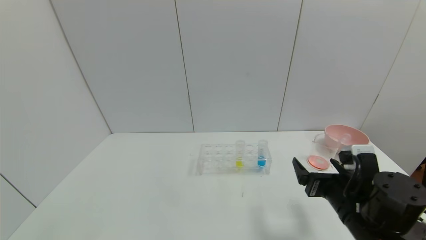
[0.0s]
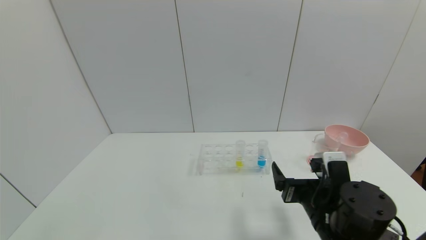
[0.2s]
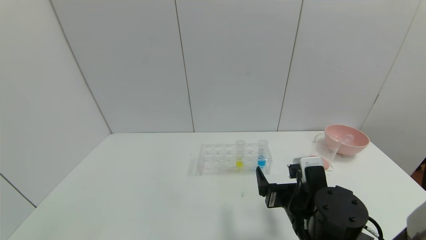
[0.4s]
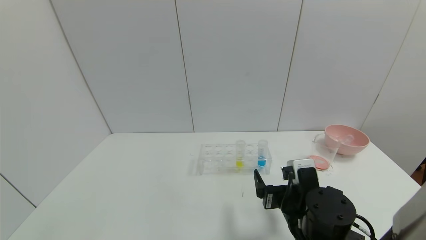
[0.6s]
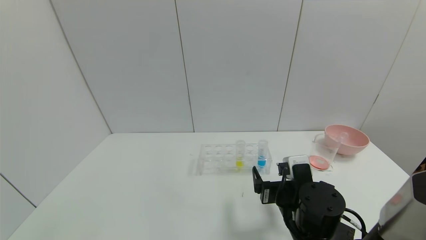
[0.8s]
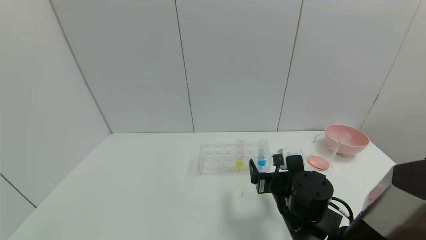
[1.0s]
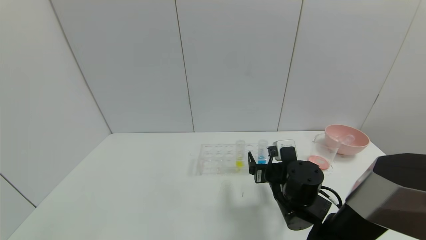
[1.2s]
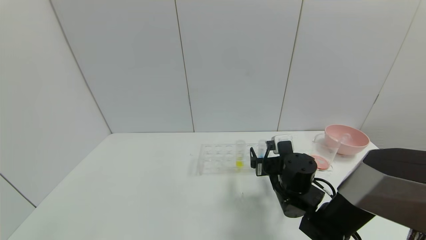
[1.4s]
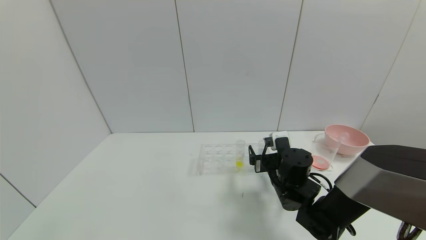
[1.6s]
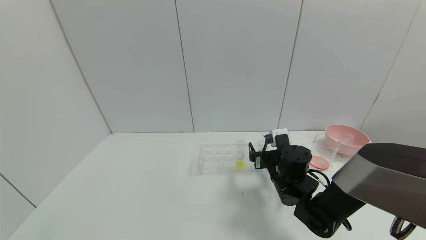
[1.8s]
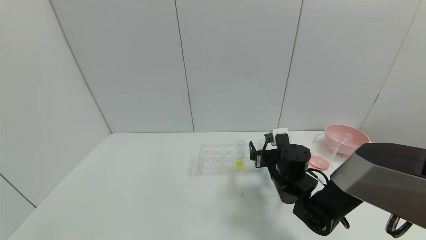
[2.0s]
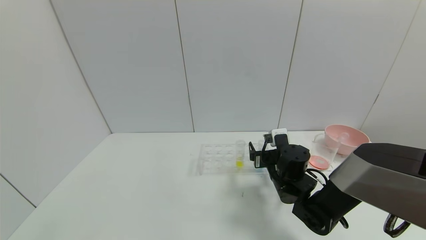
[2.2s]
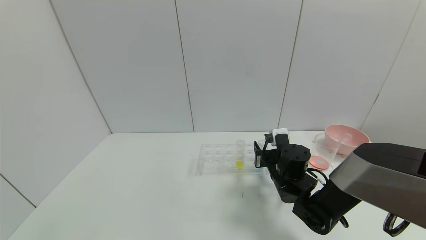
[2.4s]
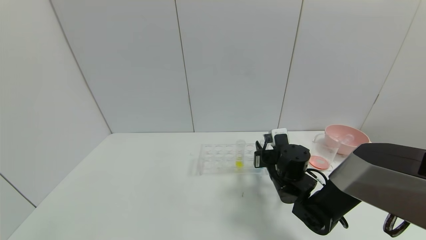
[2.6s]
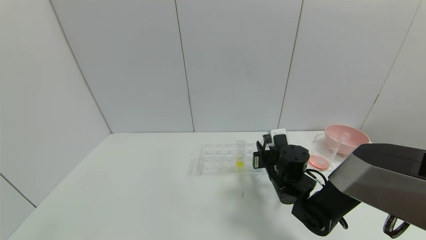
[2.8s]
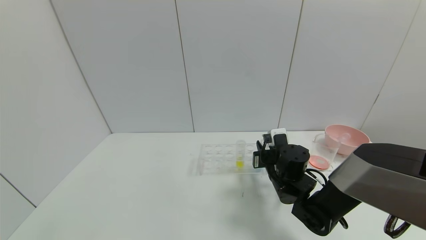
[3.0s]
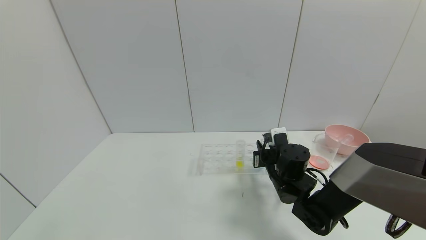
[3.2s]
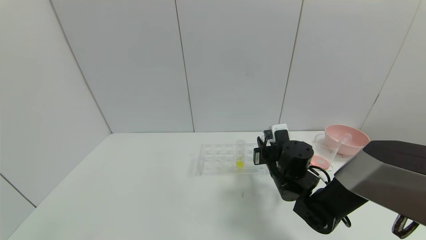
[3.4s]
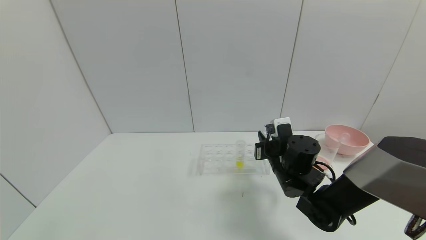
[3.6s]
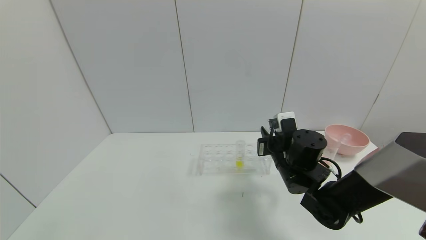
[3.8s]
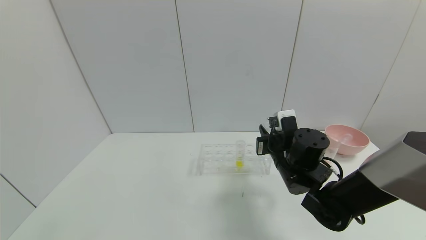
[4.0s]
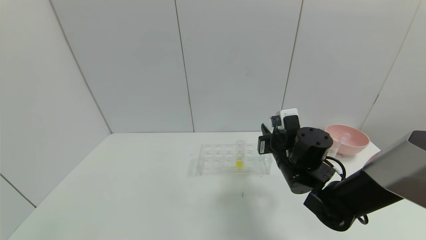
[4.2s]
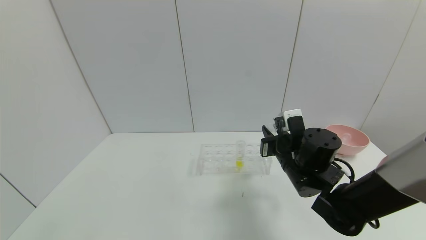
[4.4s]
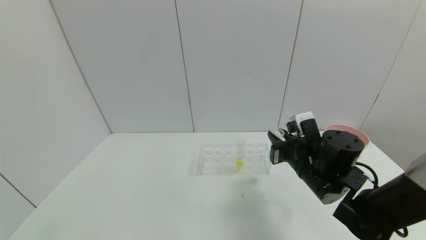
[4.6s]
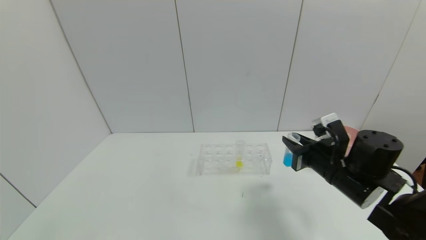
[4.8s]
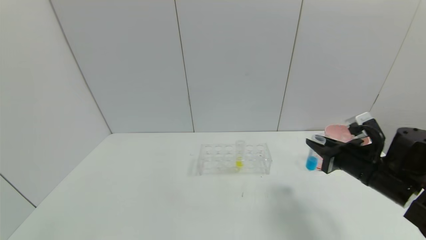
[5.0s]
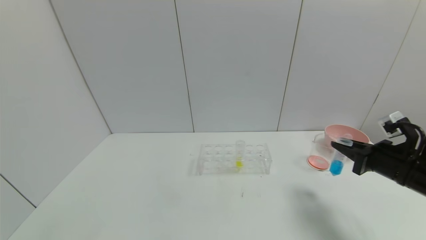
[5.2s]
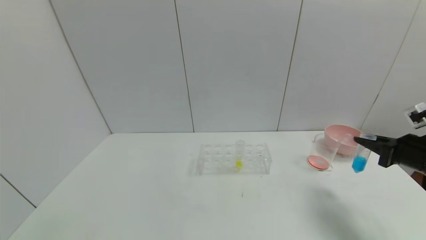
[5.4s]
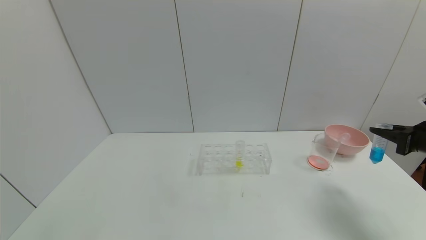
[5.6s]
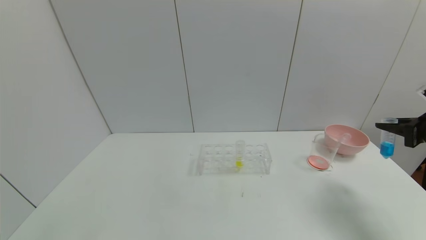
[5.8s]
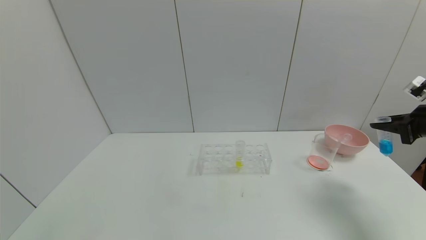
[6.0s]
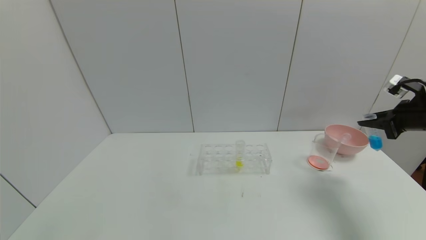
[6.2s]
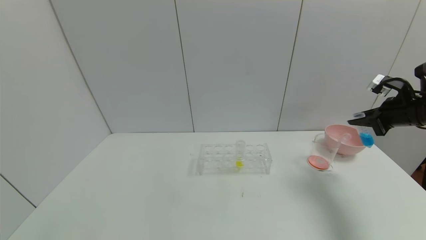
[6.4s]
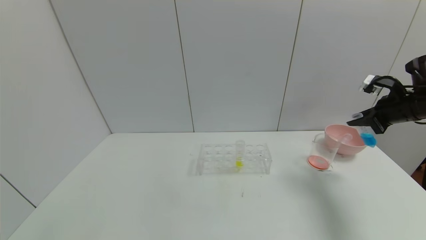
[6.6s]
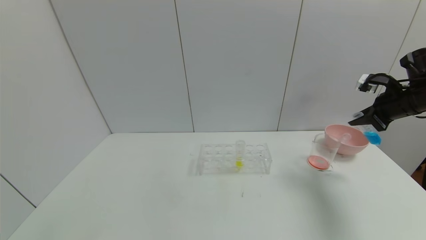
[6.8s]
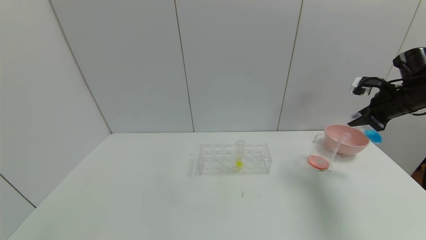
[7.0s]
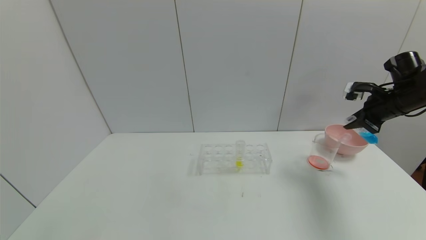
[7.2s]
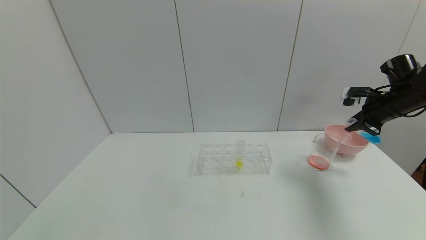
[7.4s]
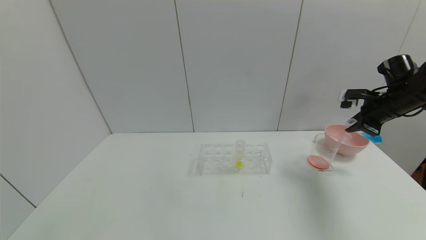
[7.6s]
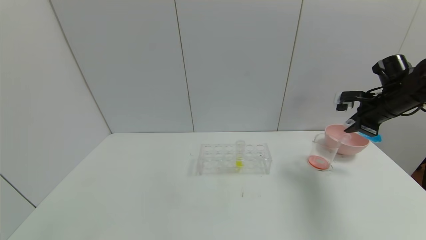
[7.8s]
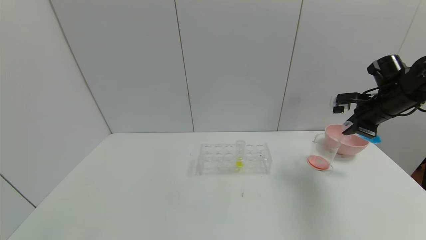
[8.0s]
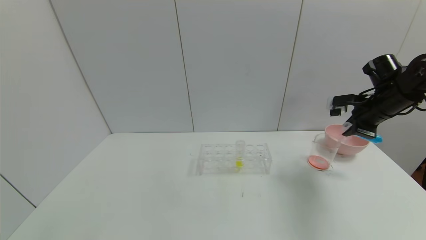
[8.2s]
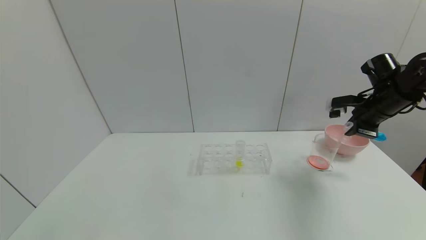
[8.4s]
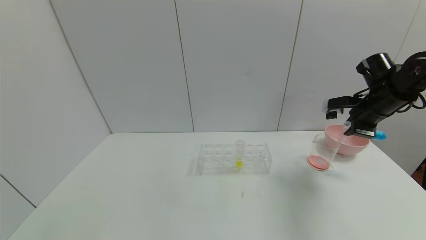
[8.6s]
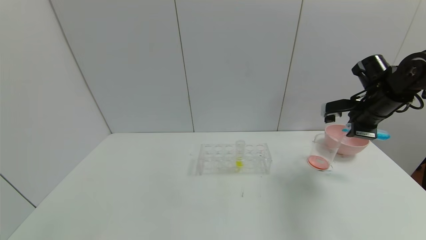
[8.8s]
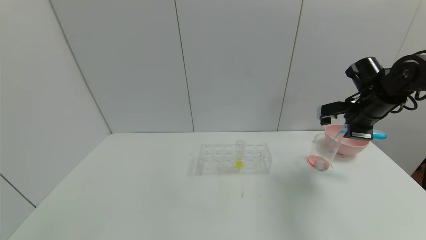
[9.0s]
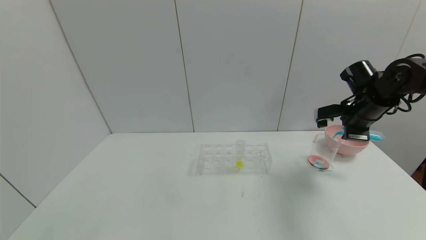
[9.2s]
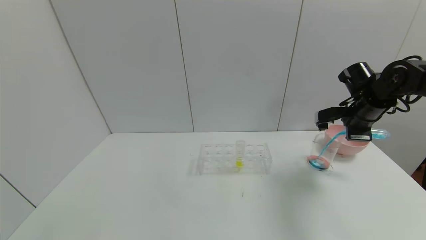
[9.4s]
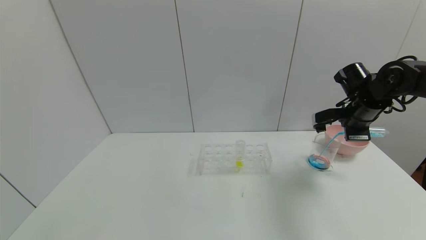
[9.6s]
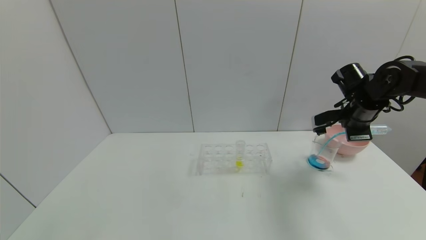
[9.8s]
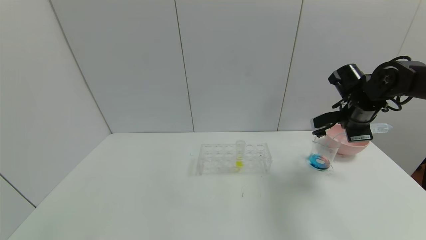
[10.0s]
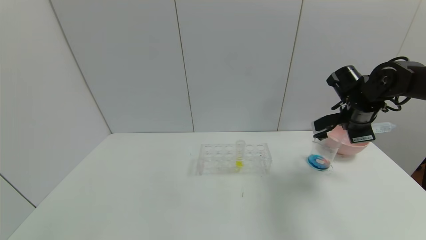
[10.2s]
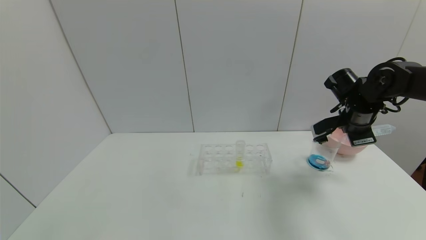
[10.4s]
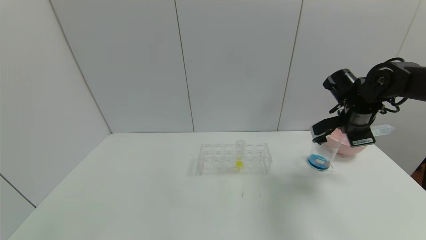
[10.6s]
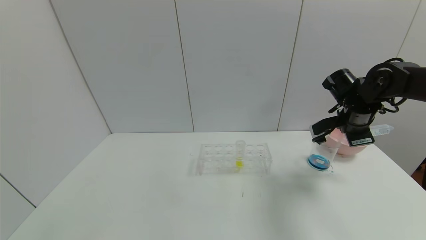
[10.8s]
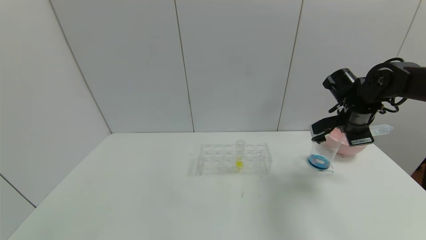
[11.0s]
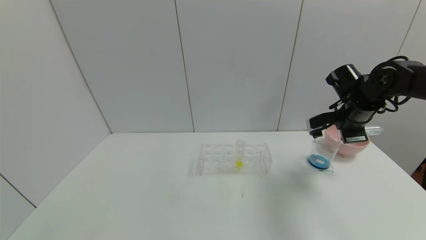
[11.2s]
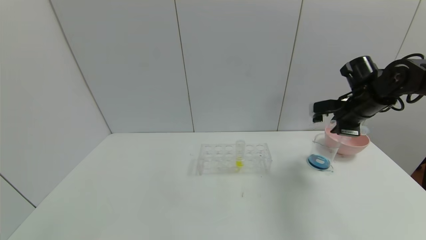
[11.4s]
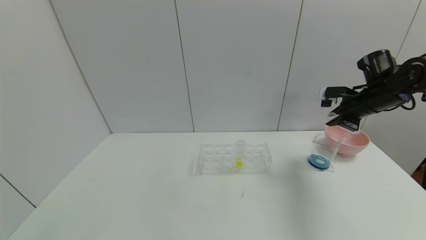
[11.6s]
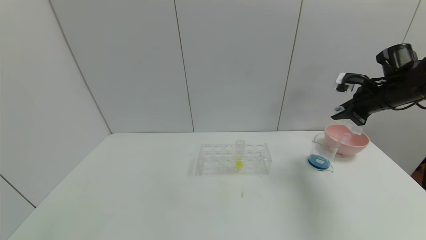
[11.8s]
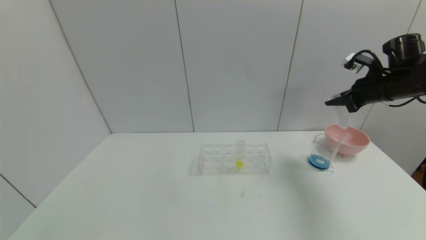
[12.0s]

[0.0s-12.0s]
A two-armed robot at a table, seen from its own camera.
Task of the whole recording: pick up the test tube with red pigment and the test tube with blue pigment by grippers and pour them into the container.
Step, 0.0s to 6.2s: Pick up the test tube containing the blue reagent with right gripper.
0.0s to 1.6s: The right gripper goes some 15 cm forward and to the left.
1.6s to 3.0s: The right gripper closes its fingers.
3.0s to 4.4s: The right gripper moves upward, about 5 cm.
4.4s to 6.0s: The right gripper travels to the right by approximately 30 cm.
6.0s to 7.6s: The right gripper heads forward and to the left, covering roughly 10 cm.
7.6s to 9.0s: The right gripper travels to the left by roughly 5 cm.
10.4s to 12.0s: The right gripper travels to the right and upward by approximately 10 cm.

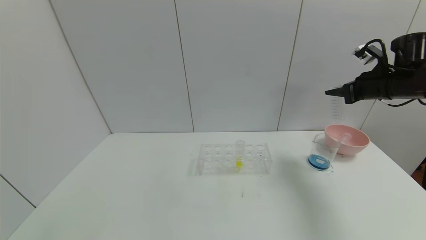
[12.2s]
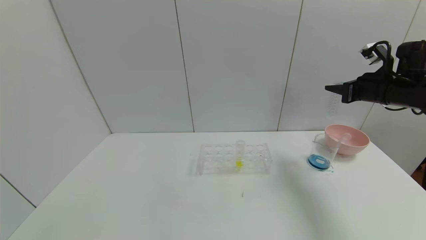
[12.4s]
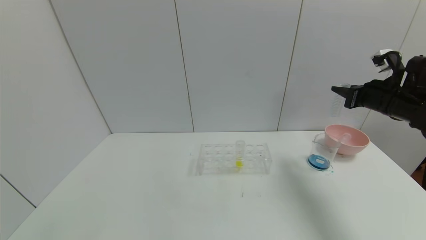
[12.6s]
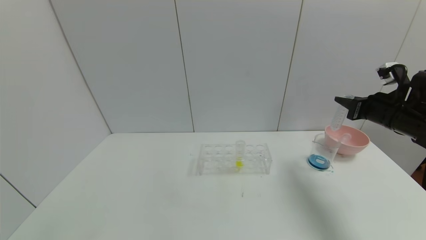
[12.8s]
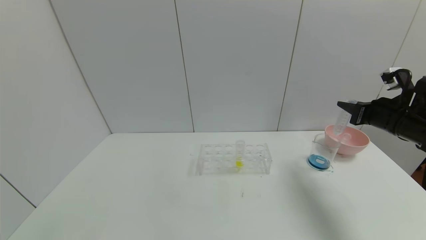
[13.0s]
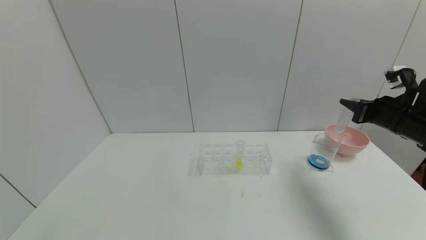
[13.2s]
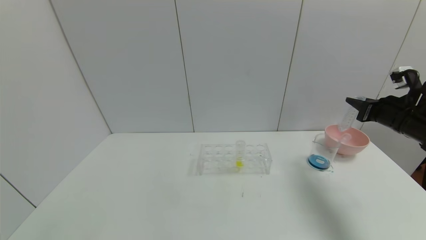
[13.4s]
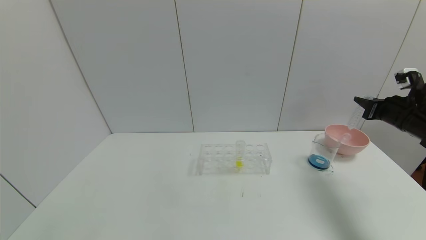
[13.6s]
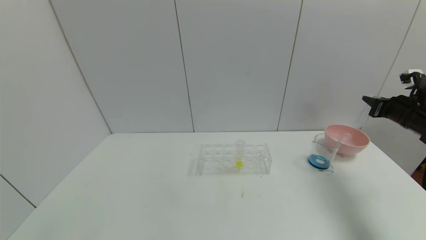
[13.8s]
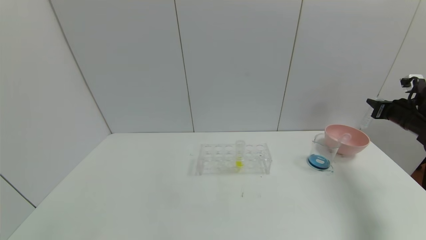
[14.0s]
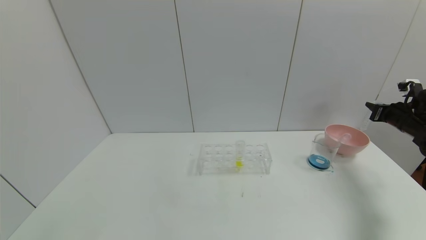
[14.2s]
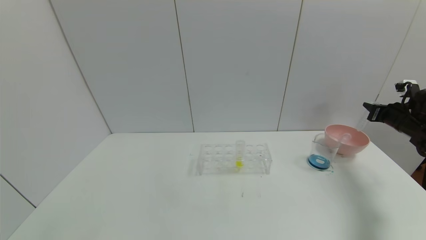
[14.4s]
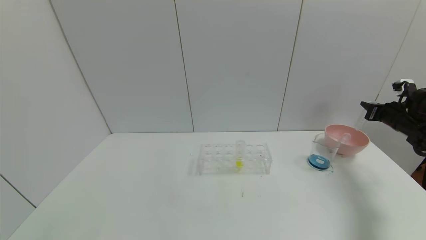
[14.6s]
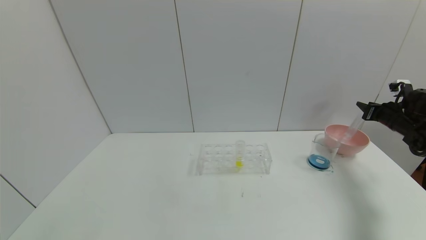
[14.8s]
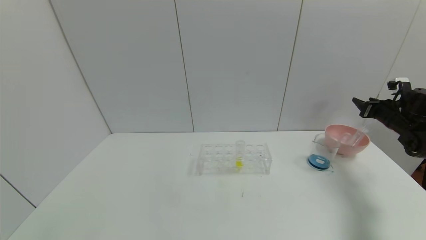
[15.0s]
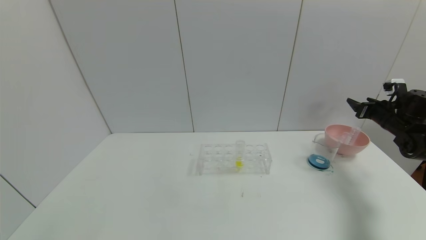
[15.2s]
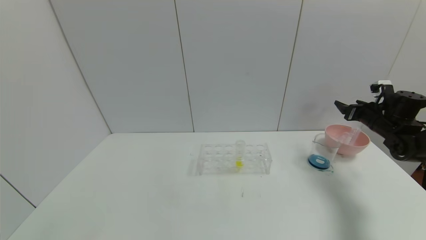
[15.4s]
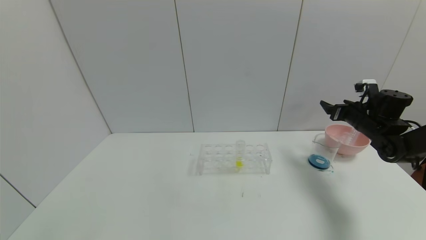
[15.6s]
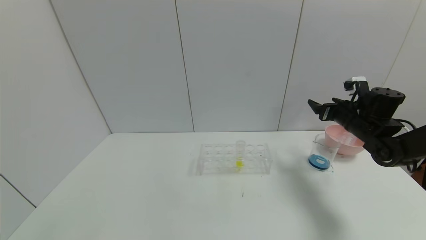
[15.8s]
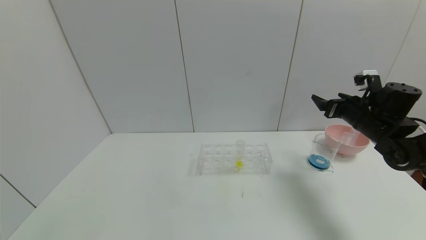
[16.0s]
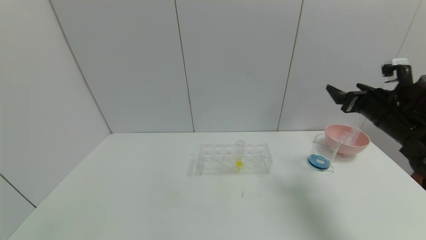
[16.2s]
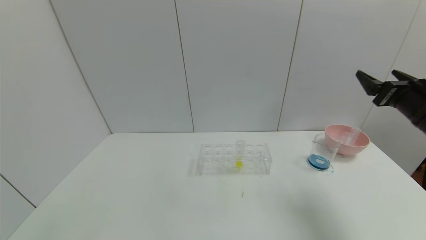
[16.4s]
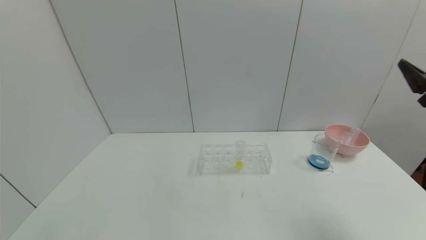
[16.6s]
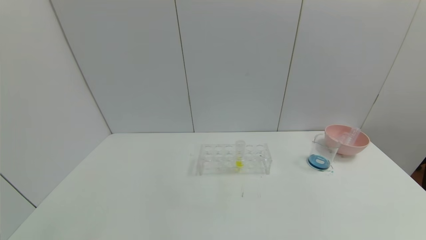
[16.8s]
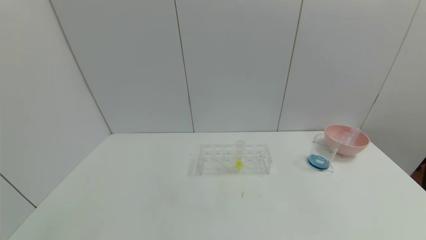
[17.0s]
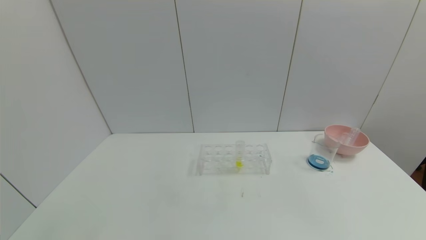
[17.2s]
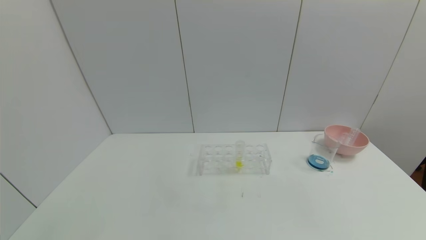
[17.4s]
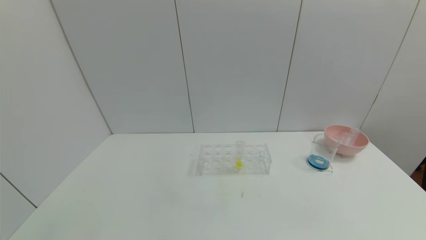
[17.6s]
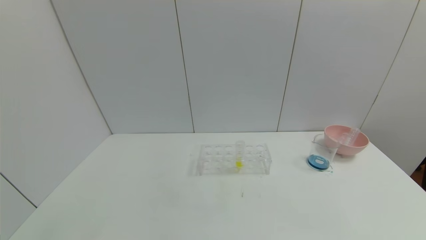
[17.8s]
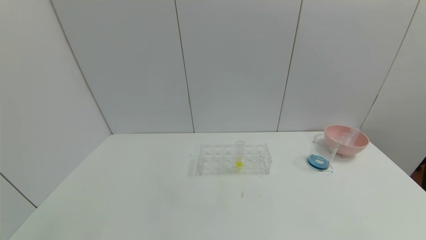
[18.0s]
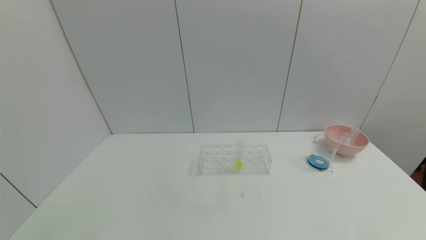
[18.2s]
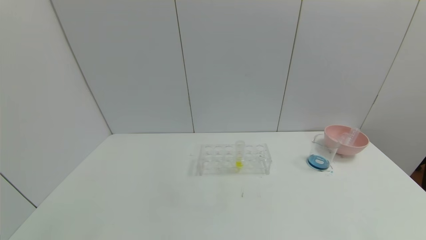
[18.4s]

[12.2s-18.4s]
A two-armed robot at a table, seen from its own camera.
Task of the whole recording: pick up the test tube with red pigment and the test tube with blue pigment by grippers and pour them into the container.
Step, 12.4s to 15.4s: Place the test tube into the bowl with right gripper.
12.2s to 13.8s: The right gripper heads to the right and downward, covering approximately 10 cm.
13.8s to 15.4s: The right gripper is displaced forward by roughly 5 cm, and opens up.
15.4s to 16.8s: The right gripper travels backward by about 30 cm.
